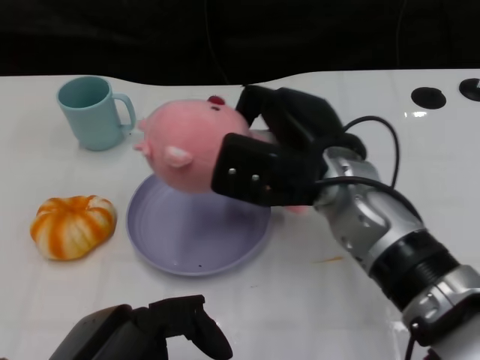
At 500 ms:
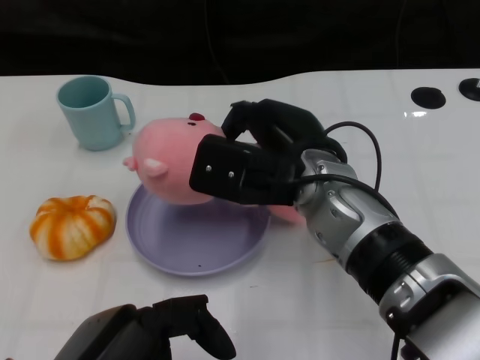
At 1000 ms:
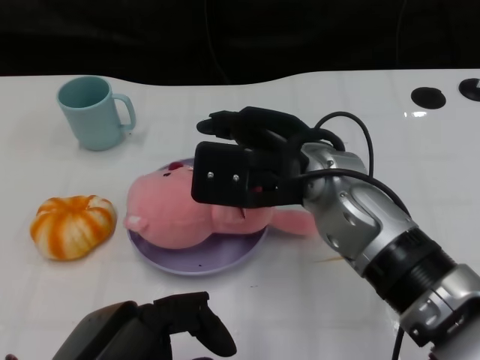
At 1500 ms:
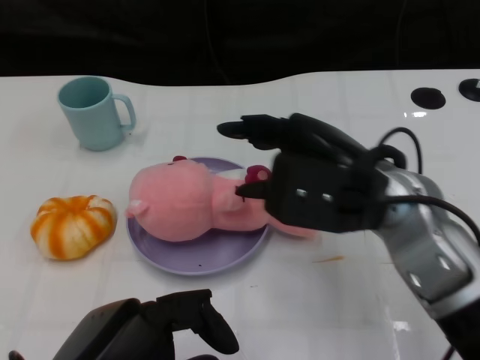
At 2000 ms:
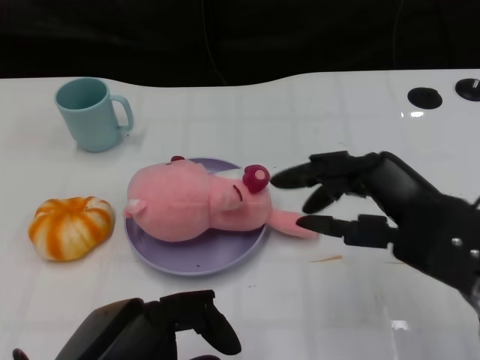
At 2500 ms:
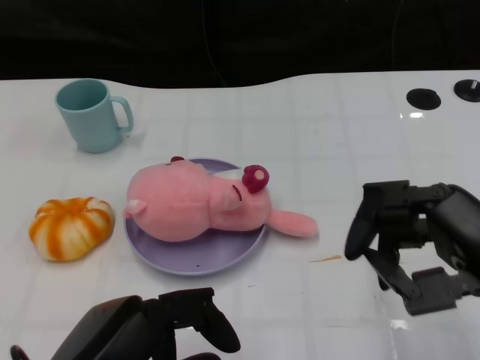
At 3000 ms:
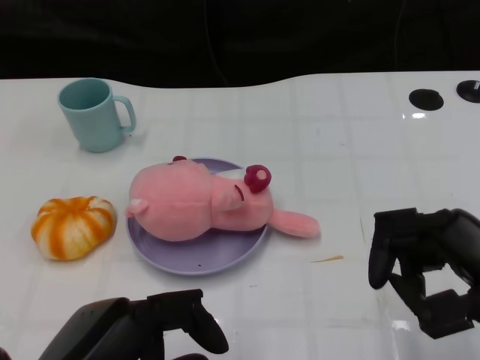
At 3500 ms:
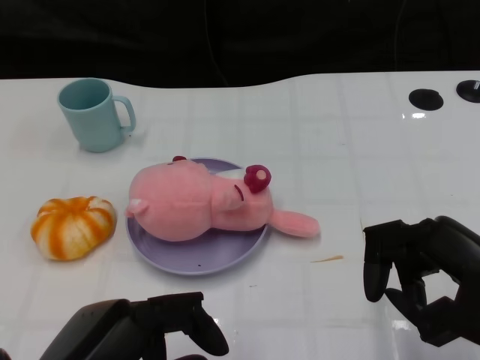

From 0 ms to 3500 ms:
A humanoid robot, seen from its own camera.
Task of the whole recording: Pick up the doll on the other side of the plate and place it into the plate.
Step, from 0 ms to 1000 ms: Place the pink doll into the plate with the right gripper.
From 0 ms to 2000 ms: The right hand is displaced to the right and backward by about 15 cm.
From 2000 ms to 3500 ms: The right hand is displaced backward by roughly 5 cm.

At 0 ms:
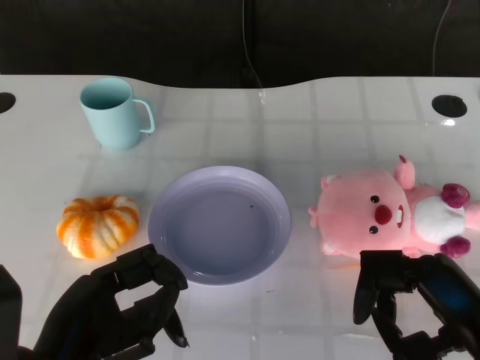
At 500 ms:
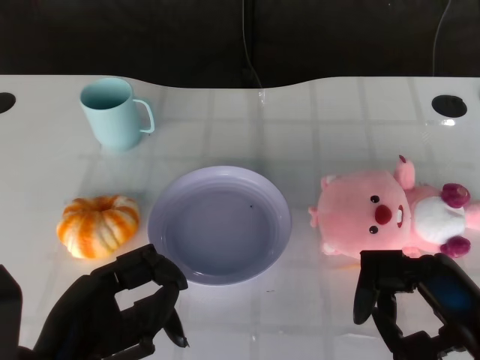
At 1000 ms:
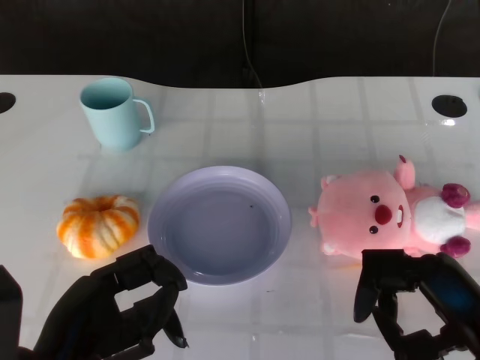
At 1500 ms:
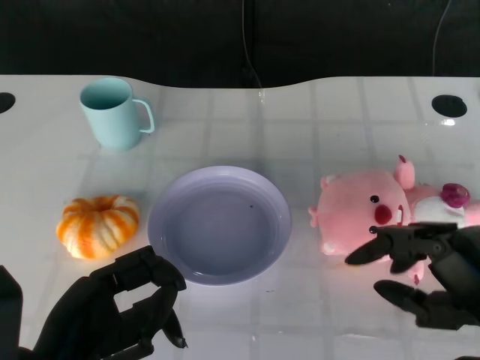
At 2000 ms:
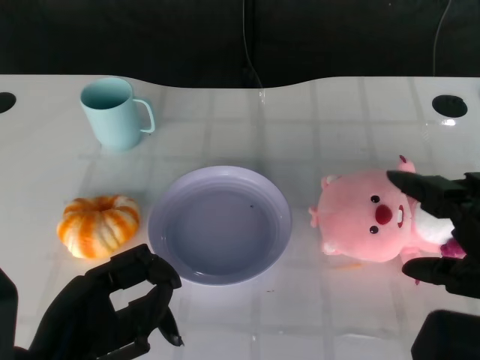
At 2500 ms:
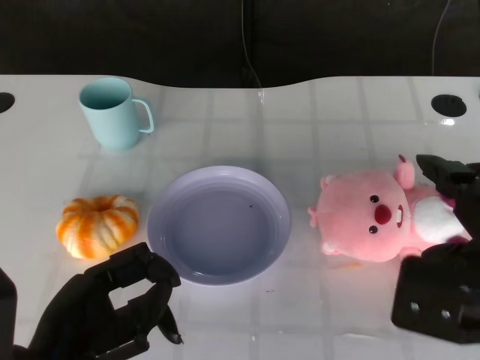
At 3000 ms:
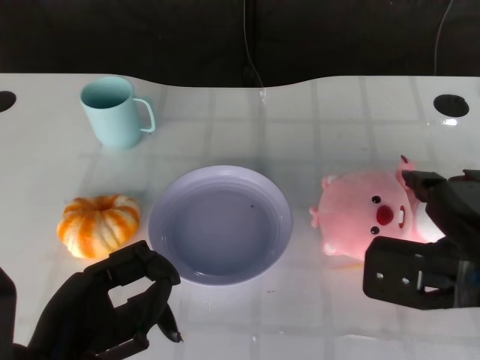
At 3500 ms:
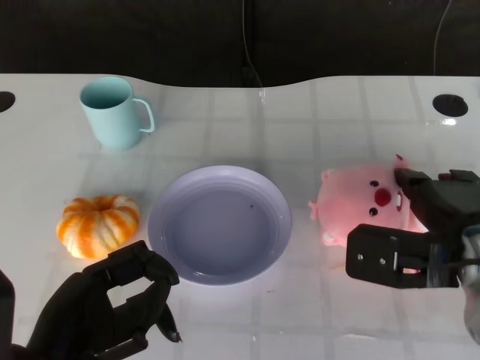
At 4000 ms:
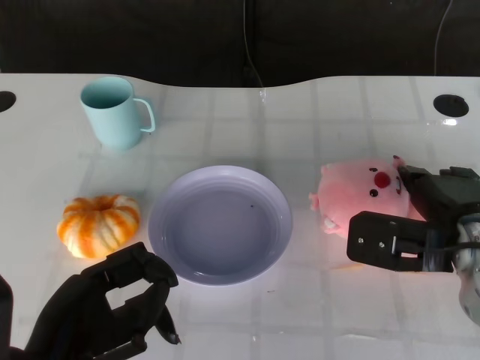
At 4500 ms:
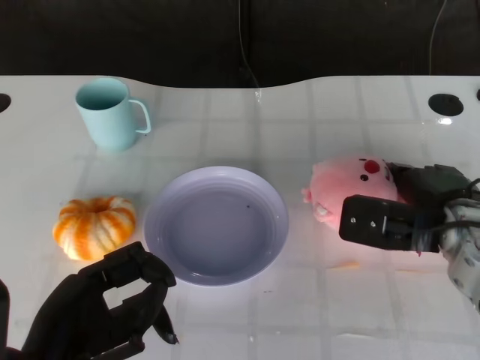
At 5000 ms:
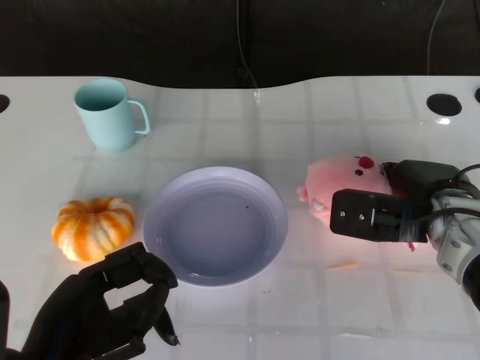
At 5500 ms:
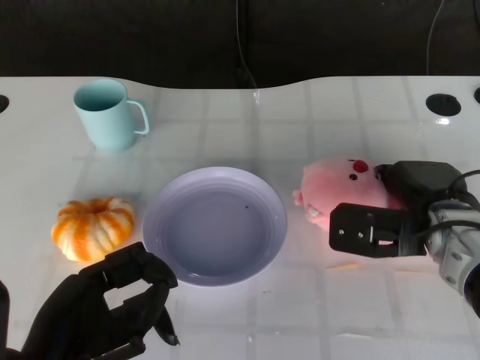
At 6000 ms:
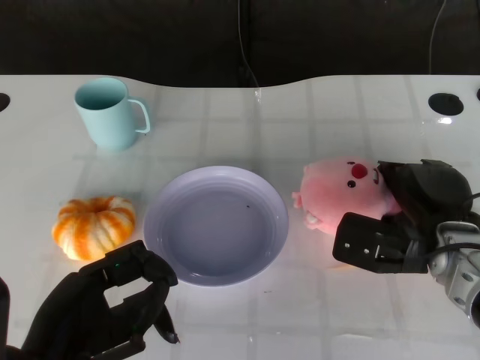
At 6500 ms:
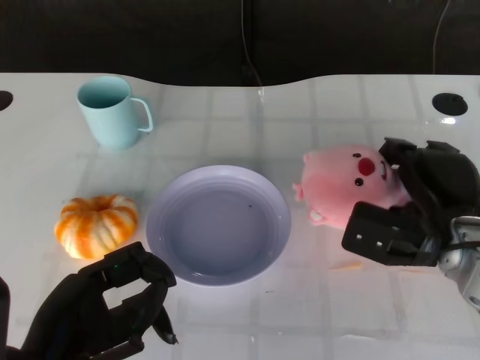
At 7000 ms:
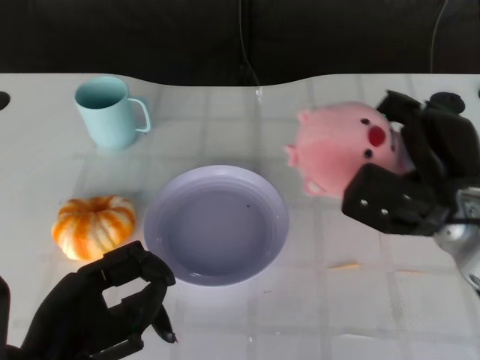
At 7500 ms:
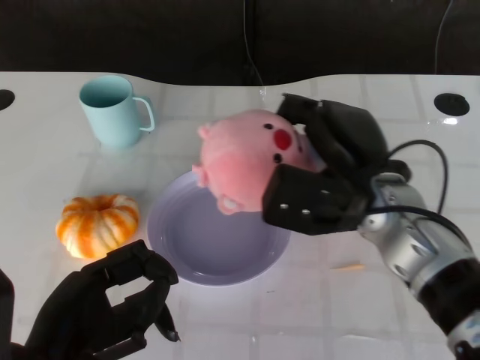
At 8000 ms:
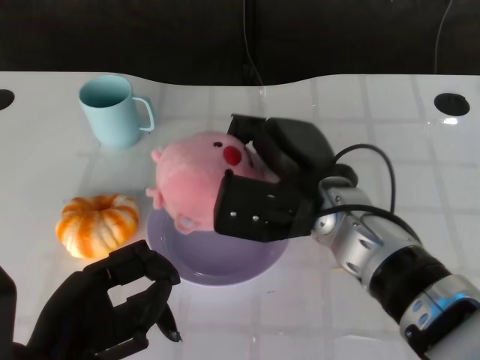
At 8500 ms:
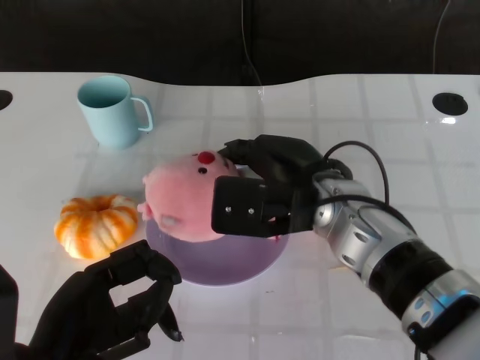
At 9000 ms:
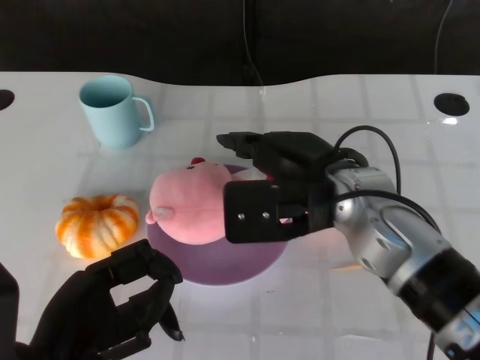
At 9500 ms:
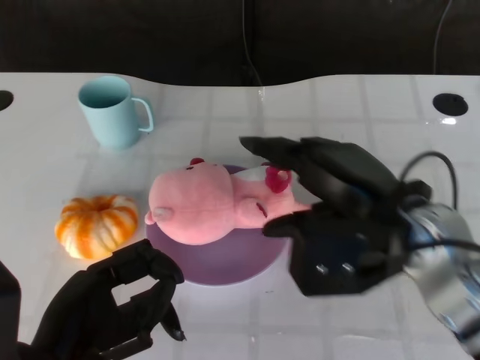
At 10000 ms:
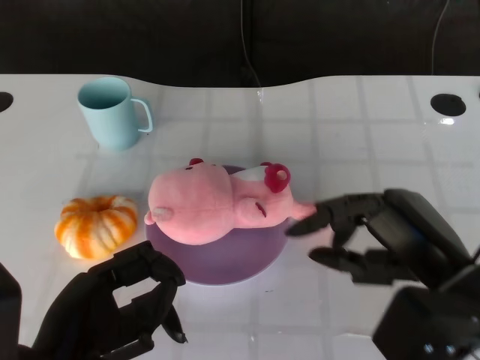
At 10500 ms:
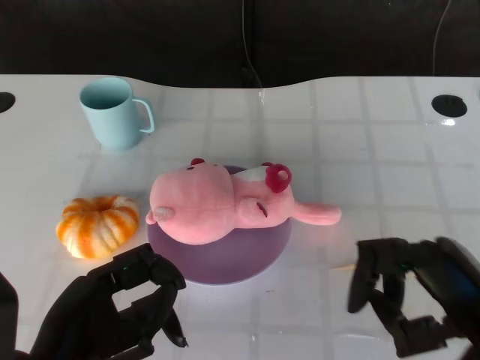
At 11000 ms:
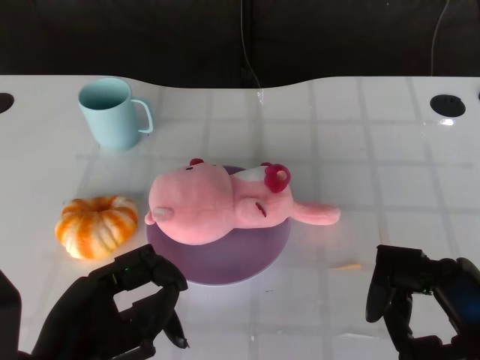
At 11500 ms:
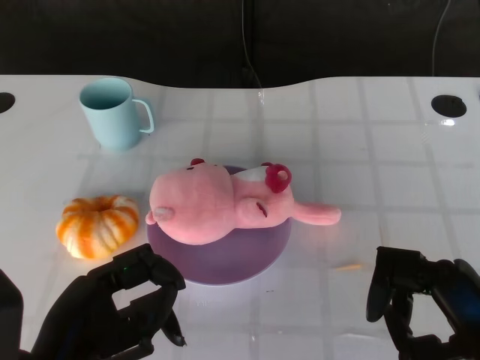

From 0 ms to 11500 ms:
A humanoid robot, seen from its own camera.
Task of the whole recording: Pick up the doll on the other side of the plate and place it into the plate.
Step, from 1000 ms to 6500 ms: Grasp the pink doll with the right gripper.
Step, from 7000 ms to 9000 ms: Place the pink doll into the plate with the right gripper.
From 2000 ms to 4000 ms: The right hand travels forward and downward by approximately 15 cm.
From 4000 ms to 6000 ms: The hands make only small movements.
From 6000 ms to 7500 ms: The right hand moves to the left and upward, approximately 10 cm.
From 7500 ms to 9500 ms: The right hand ends up about 5 cm from where it was.
From 9500 ms to 11500 ms: The right hand shifts about 15 cm backward, to the right and downward.
